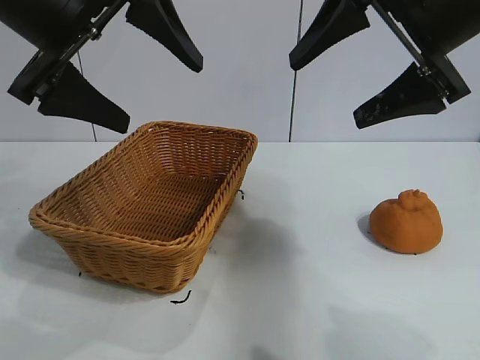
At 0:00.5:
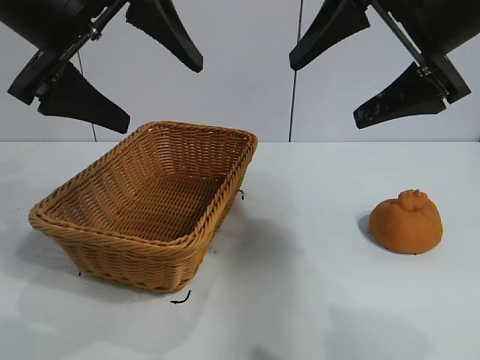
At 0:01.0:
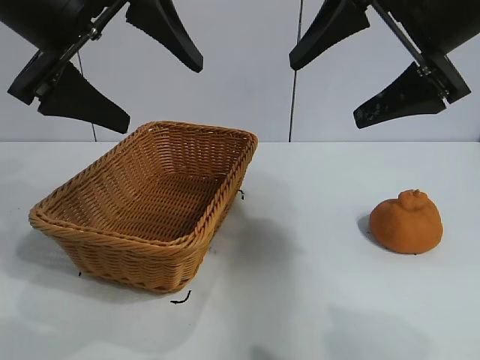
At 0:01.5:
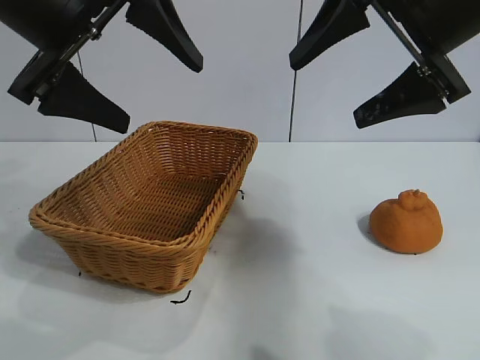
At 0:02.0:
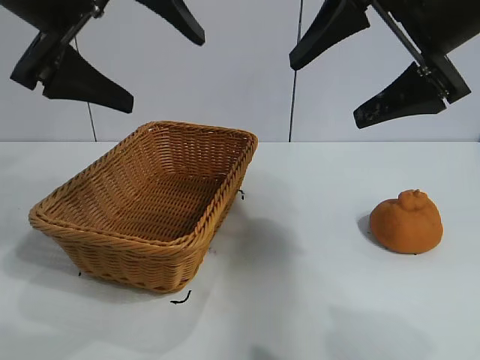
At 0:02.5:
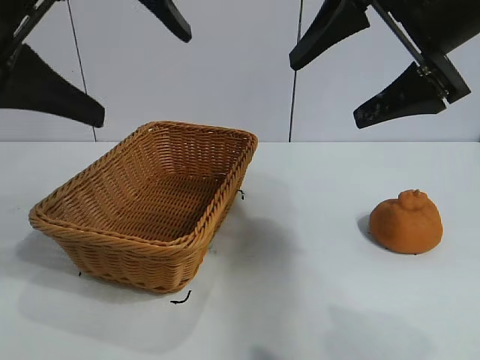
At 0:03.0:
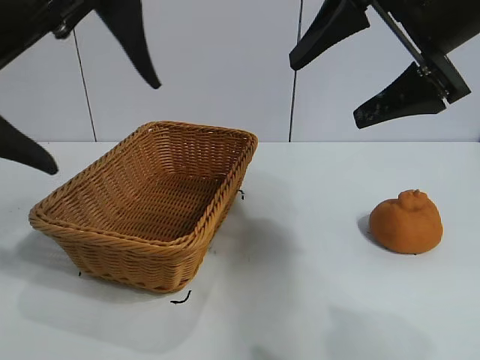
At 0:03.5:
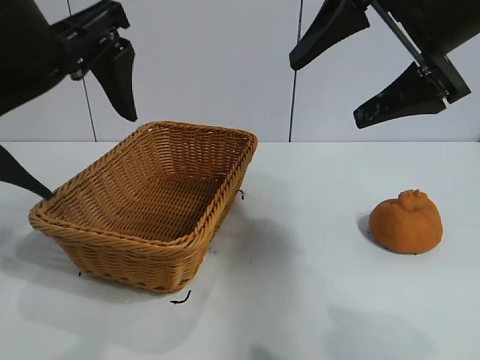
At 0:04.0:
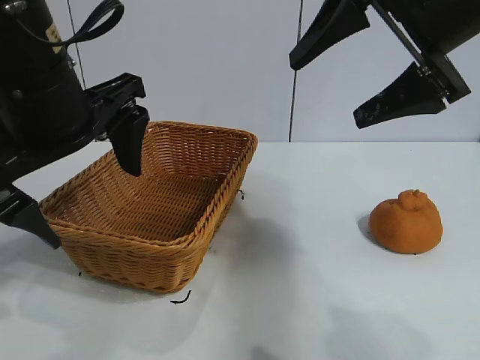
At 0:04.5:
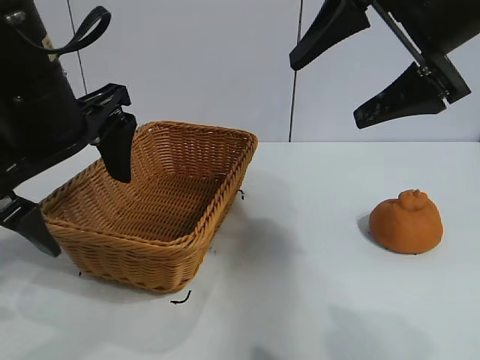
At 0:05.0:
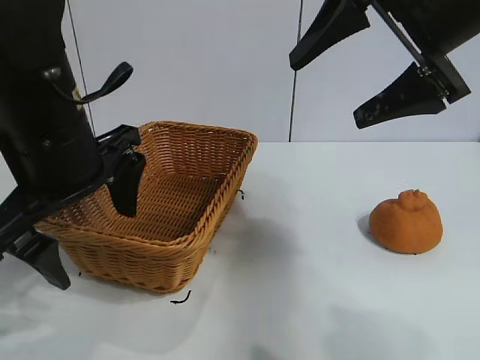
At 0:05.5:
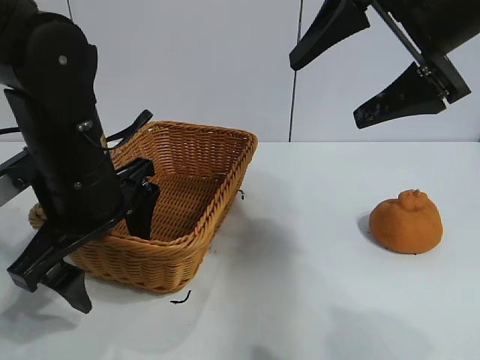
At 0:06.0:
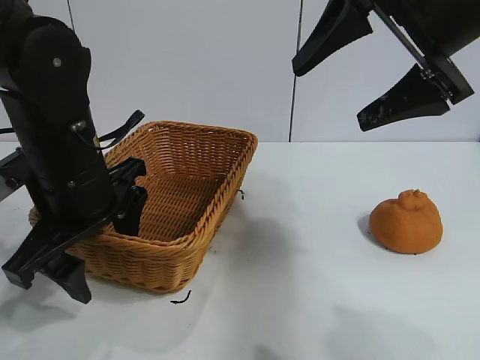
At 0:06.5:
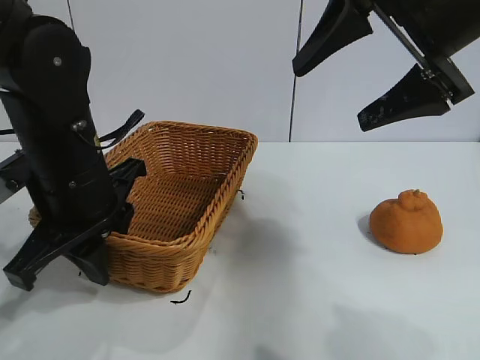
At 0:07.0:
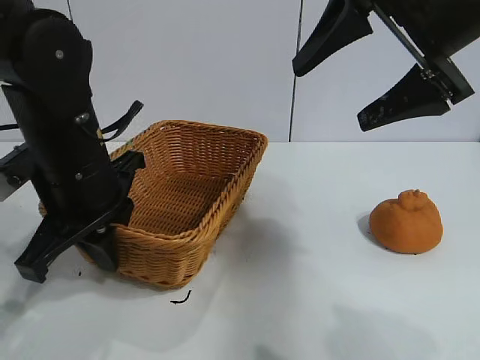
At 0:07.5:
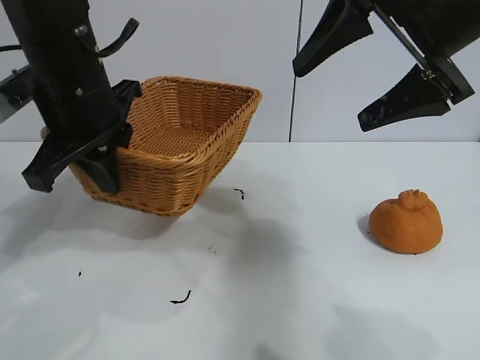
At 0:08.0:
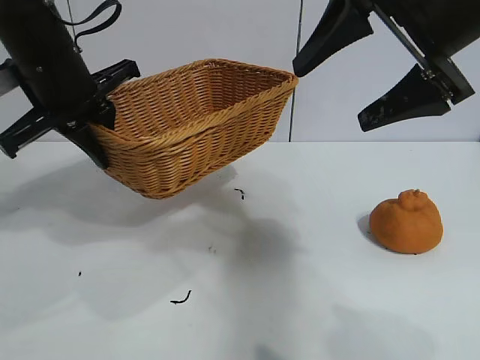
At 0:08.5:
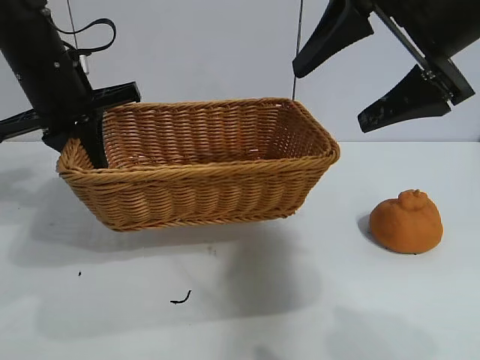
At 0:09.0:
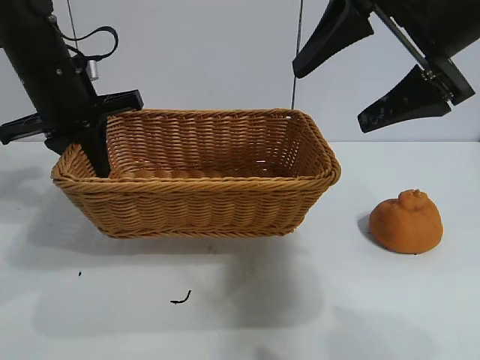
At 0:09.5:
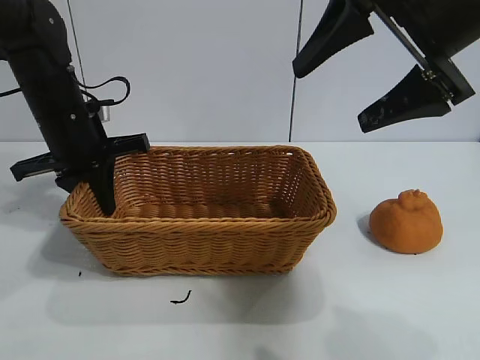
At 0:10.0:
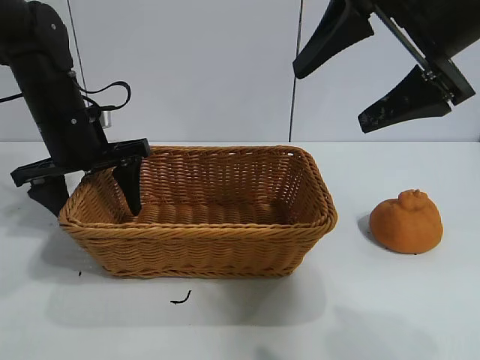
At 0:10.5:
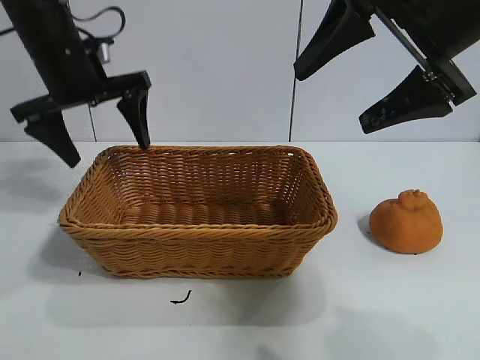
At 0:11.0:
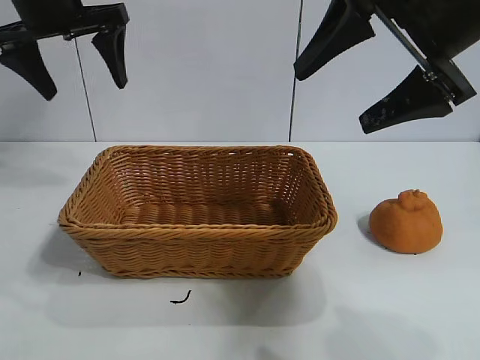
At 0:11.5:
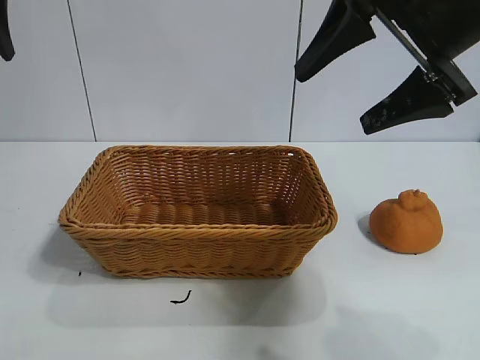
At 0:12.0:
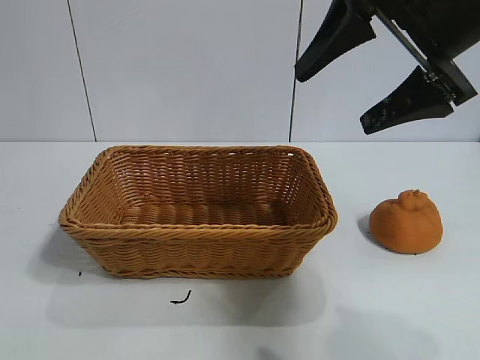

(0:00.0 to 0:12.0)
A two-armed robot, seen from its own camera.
Task of the whole recording: pick up the orange and put it into the basket.
Step, 0:02.0 - 0:06.5: Grasp the basket with left gripper.
Step, 0:07.0 - 0:10.0: Place the basket in the center of view with left gripper.

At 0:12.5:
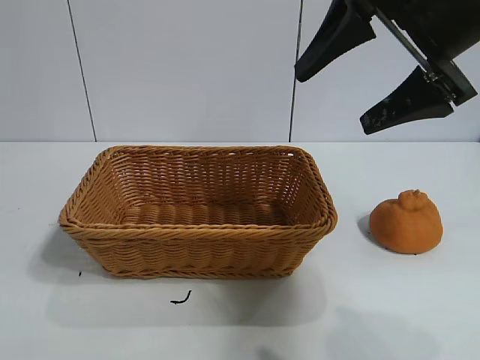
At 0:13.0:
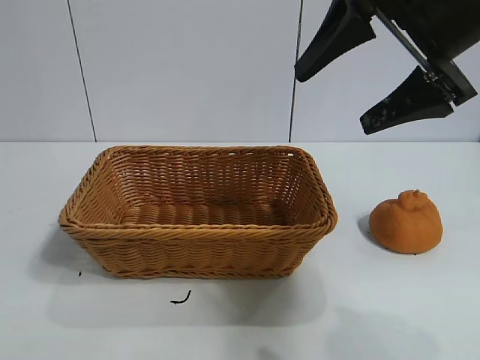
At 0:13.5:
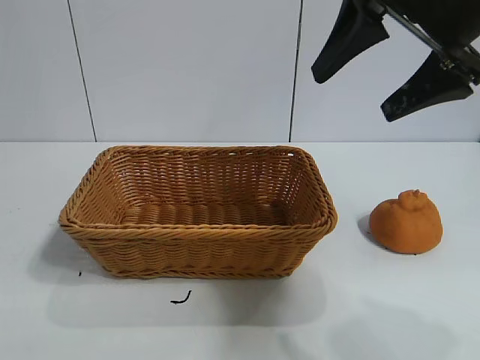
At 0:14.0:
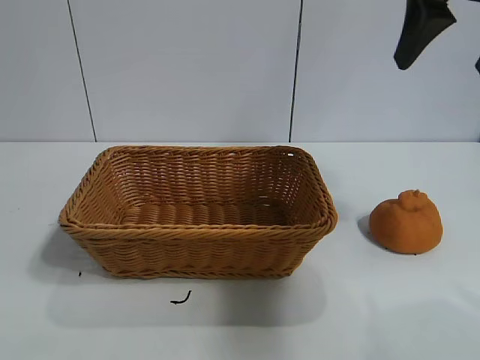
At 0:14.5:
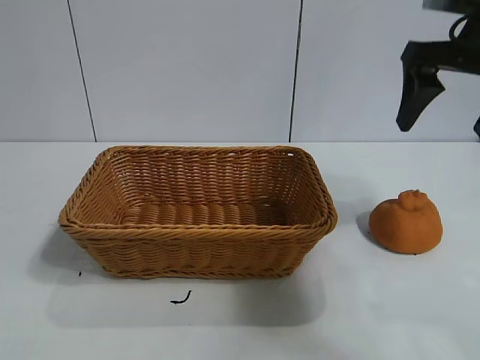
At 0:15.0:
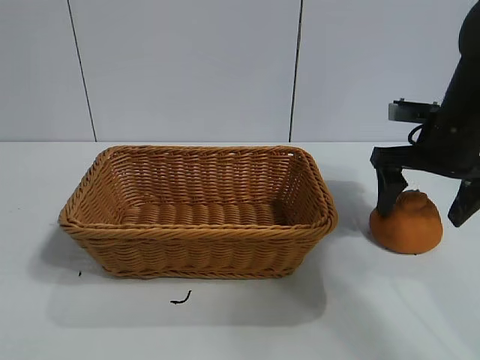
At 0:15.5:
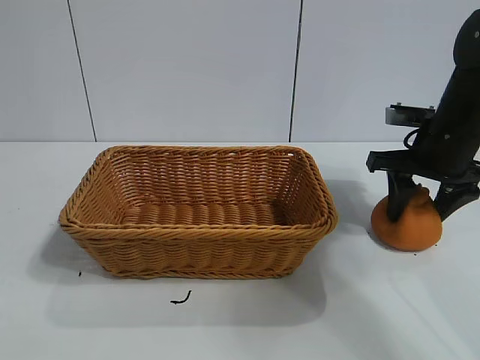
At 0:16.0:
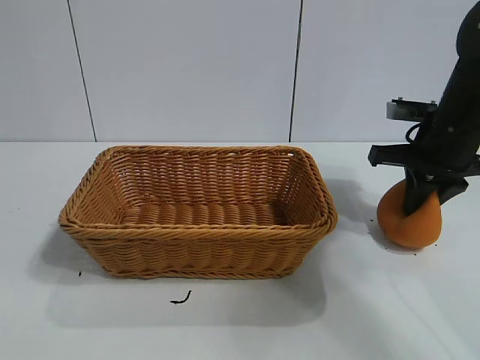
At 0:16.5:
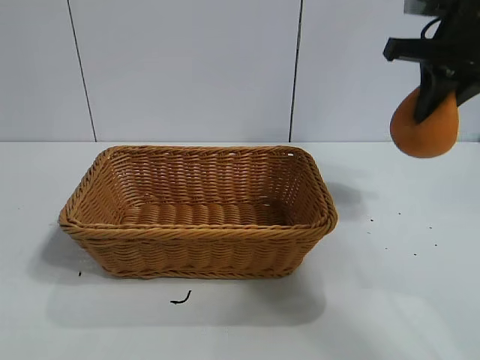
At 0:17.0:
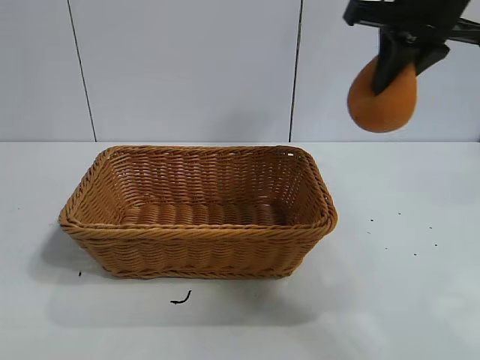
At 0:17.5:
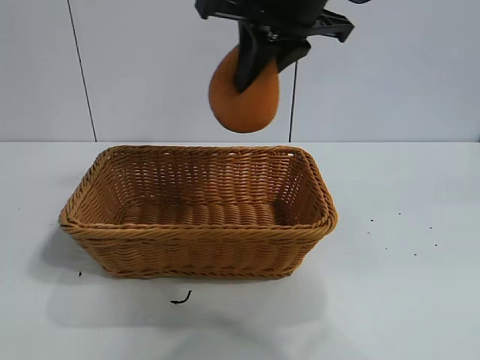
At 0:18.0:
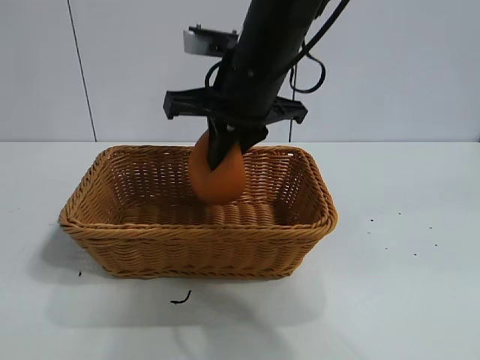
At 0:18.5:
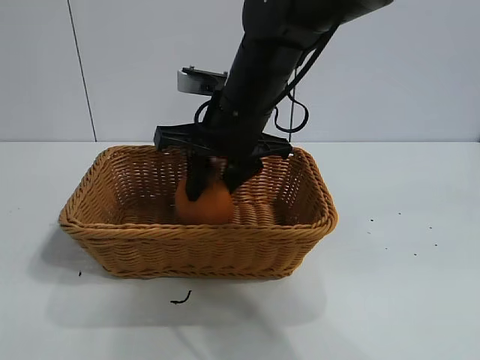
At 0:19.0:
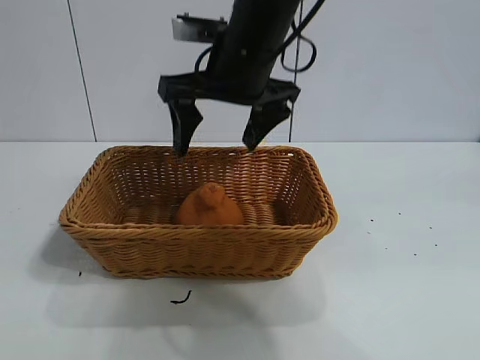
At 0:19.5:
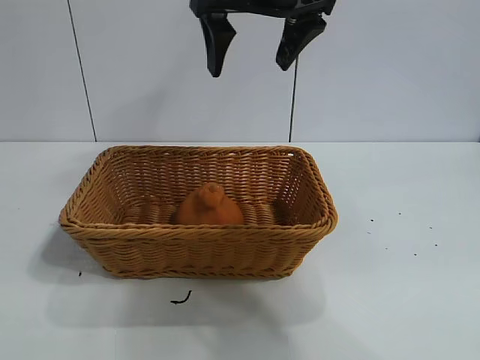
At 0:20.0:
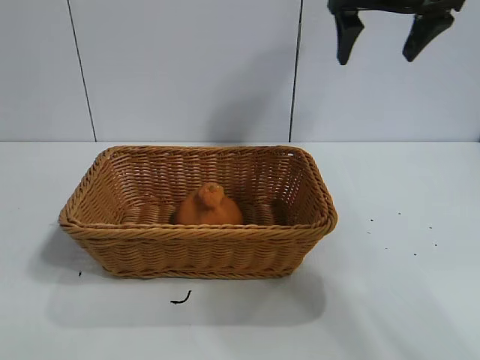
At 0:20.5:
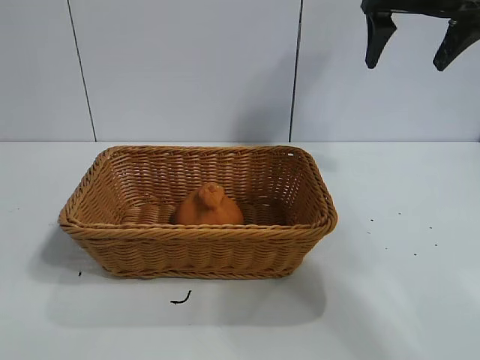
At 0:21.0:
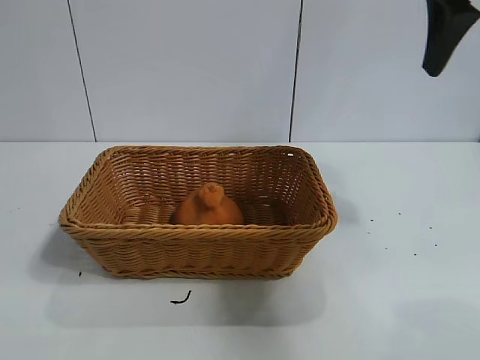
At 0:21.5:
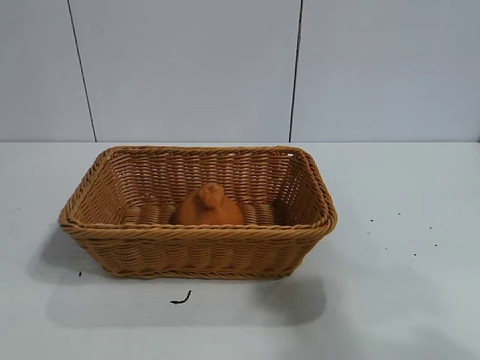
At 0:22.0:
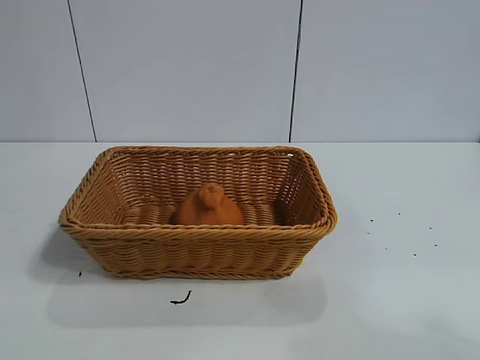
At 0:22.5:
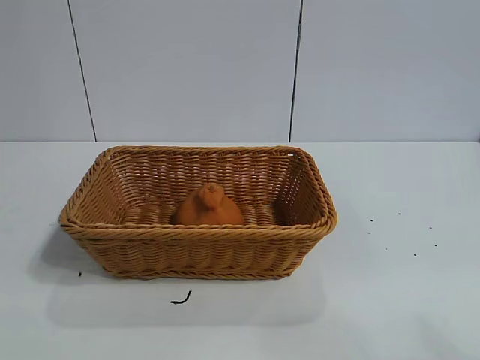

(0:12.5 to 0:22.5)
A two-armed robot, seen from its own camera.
Task of the whole recording: pick up the orange and put it into the basket.
Step, 0:12.5 - 0:16.0: Grasp the orange with right gripper.
Step, 0:16.5 - 0:18.5: Place the orange in the basket with right gripper.

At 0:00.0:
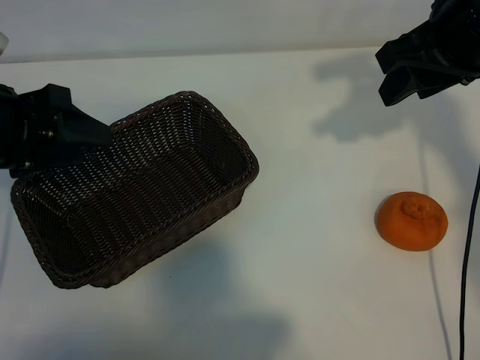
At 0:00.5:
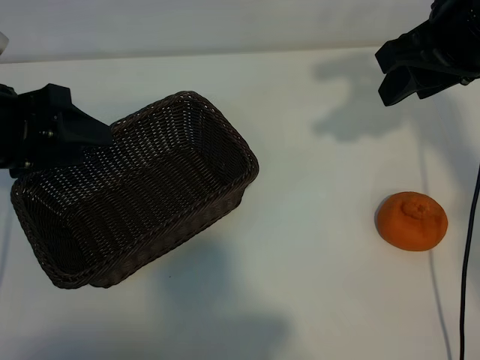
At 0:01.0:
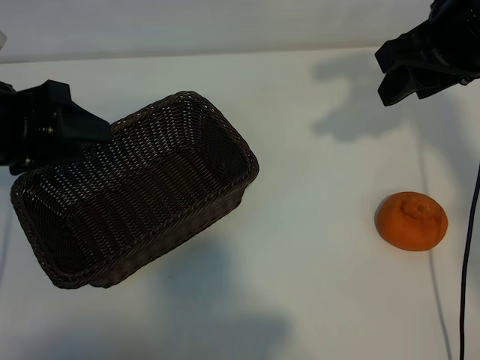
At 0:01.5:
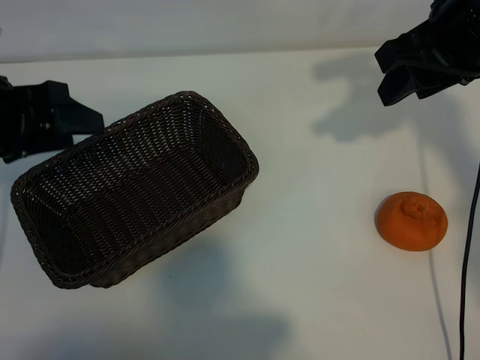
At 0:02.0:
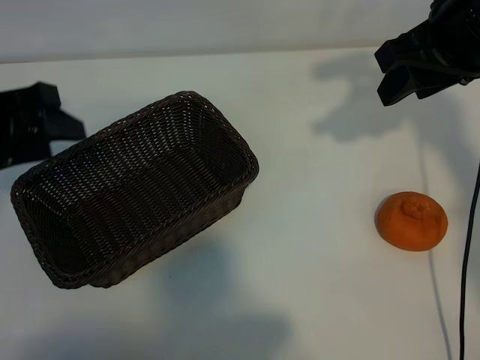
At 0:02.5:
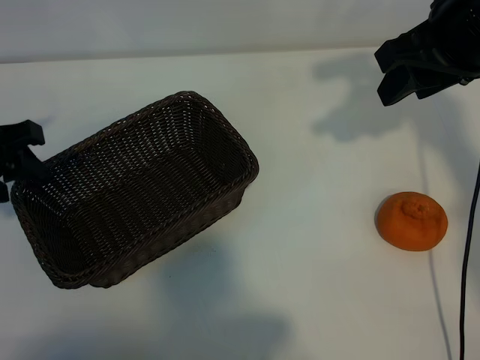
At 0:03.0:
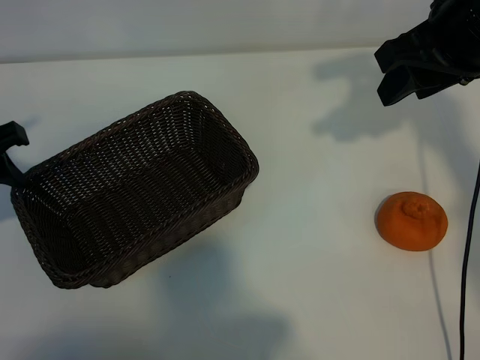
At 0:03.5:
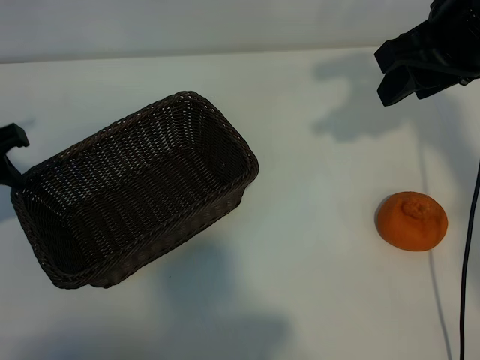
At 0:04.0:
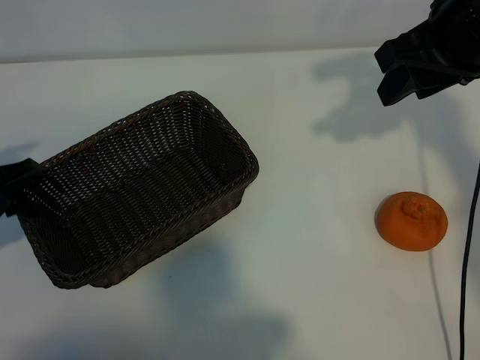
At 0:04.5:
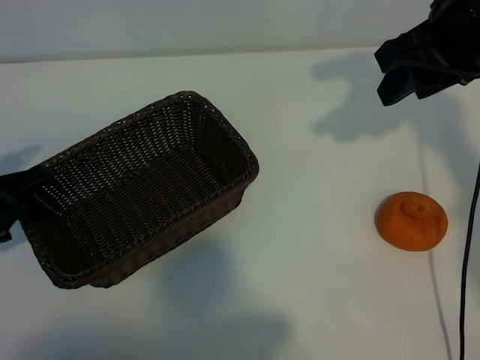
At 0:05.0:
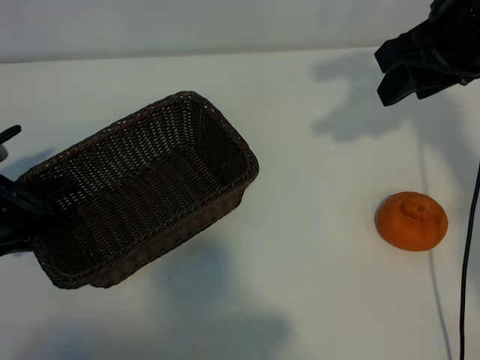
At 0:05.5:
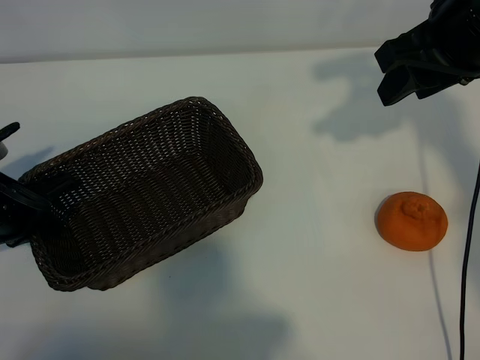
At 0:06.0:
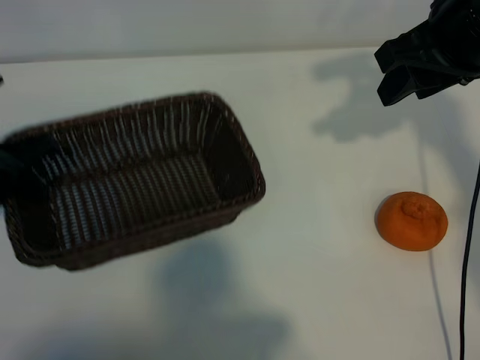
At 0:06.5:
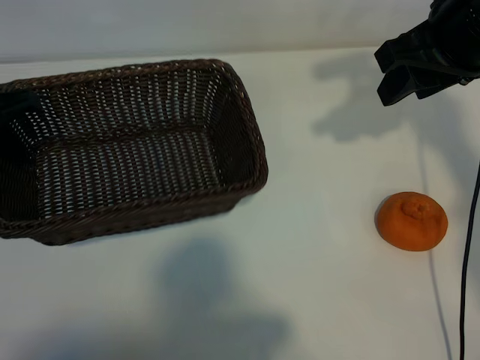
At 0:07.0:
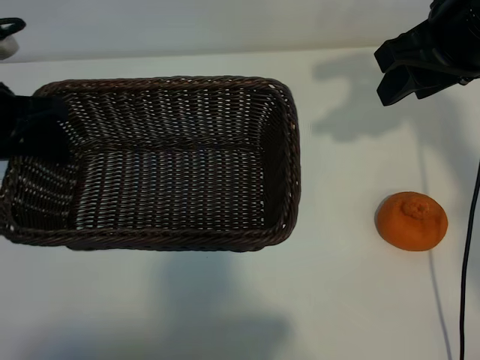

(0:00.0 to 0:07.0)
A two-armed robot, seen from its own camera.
Task of the whole recording: pick up the orange and put it into the basket.
Step, 0:01.0 - 0:05.0: Grasp the basket with left gripper.
